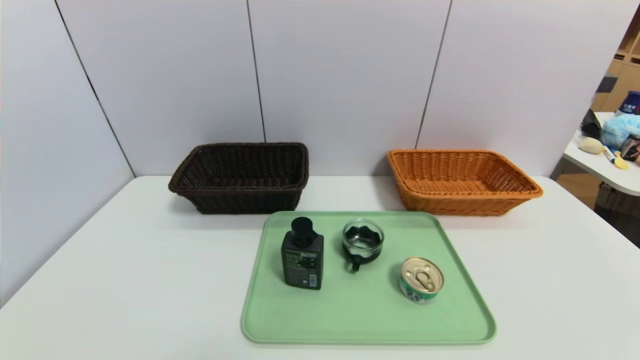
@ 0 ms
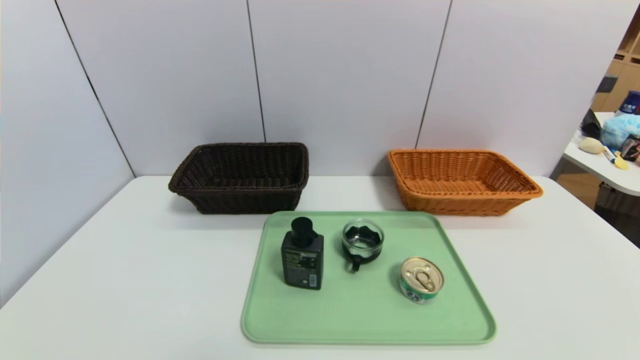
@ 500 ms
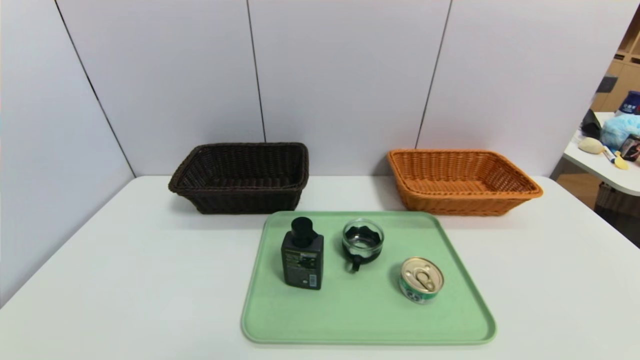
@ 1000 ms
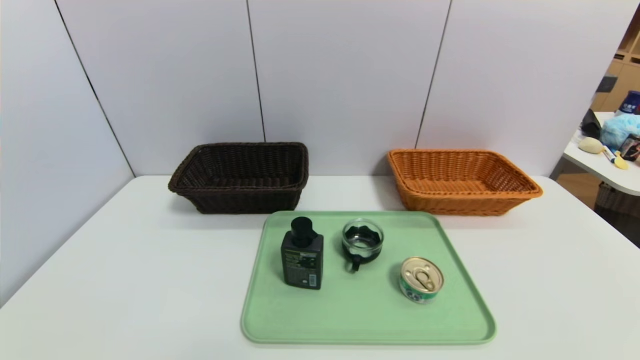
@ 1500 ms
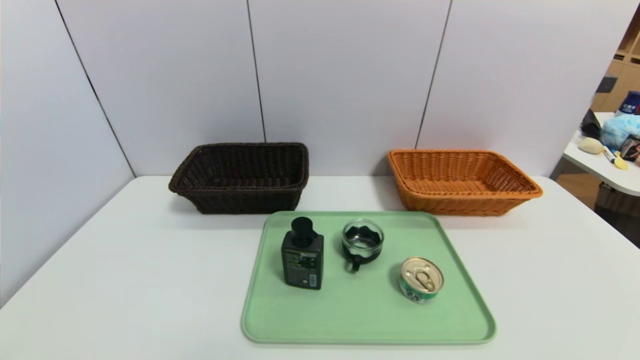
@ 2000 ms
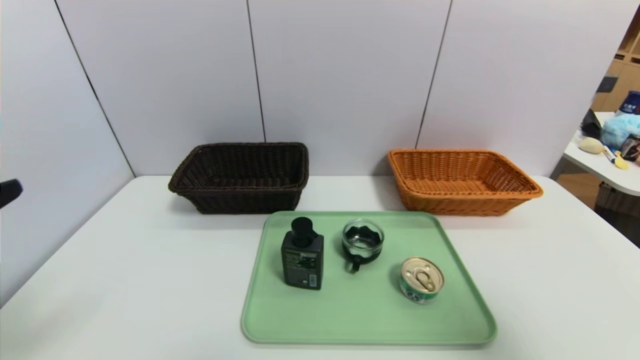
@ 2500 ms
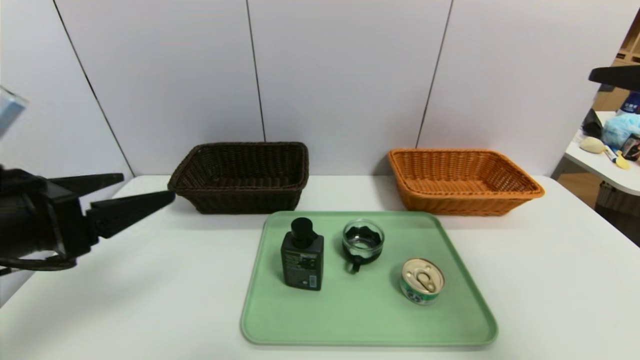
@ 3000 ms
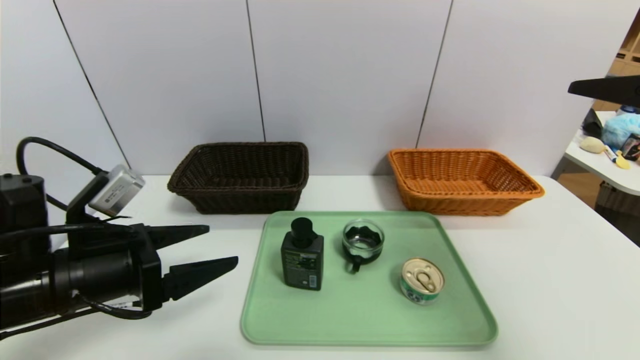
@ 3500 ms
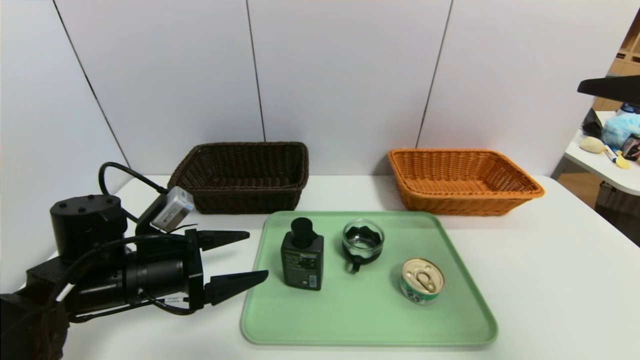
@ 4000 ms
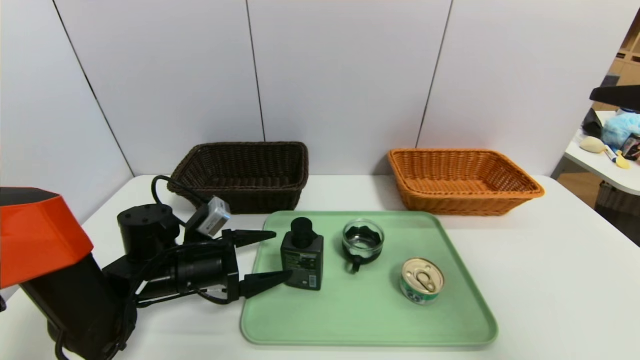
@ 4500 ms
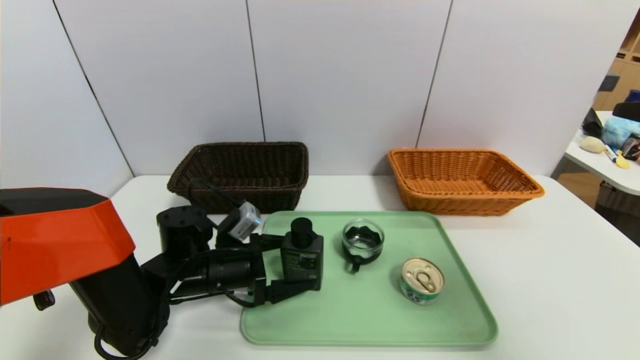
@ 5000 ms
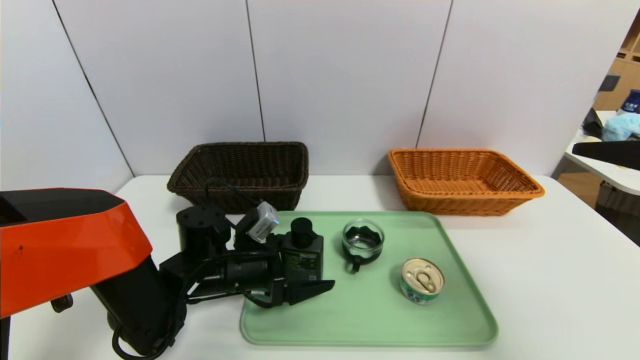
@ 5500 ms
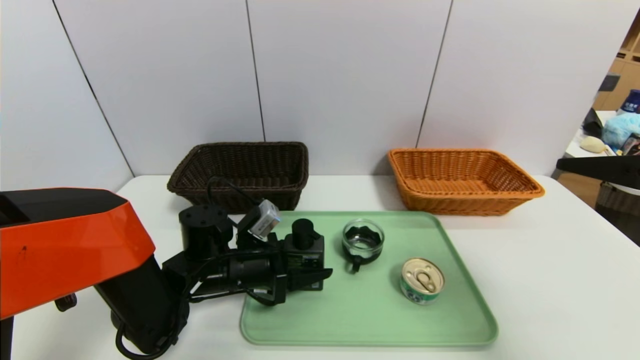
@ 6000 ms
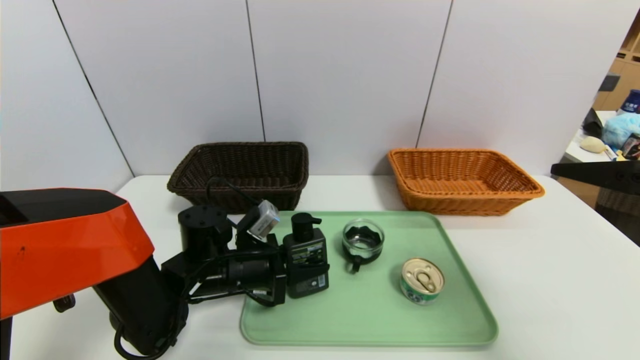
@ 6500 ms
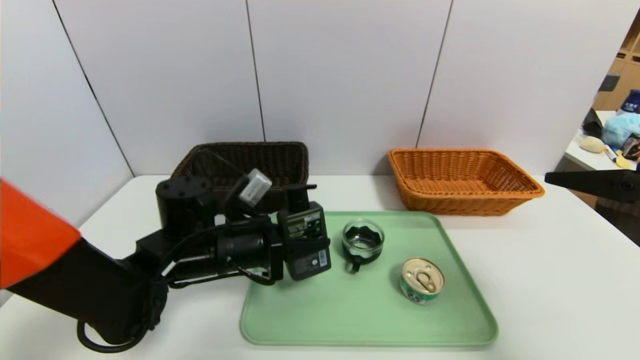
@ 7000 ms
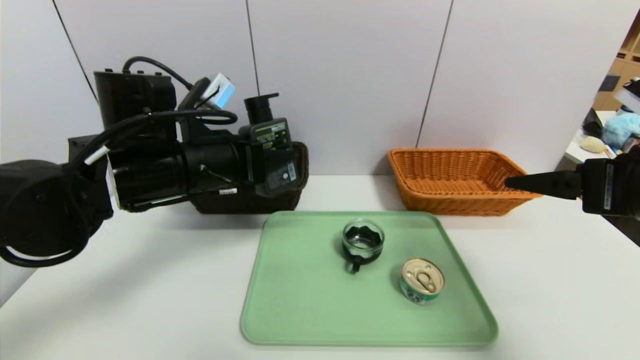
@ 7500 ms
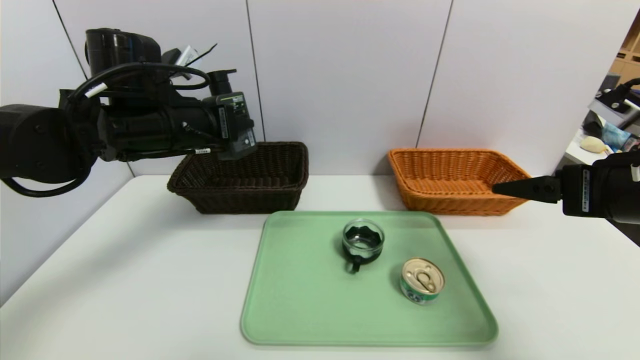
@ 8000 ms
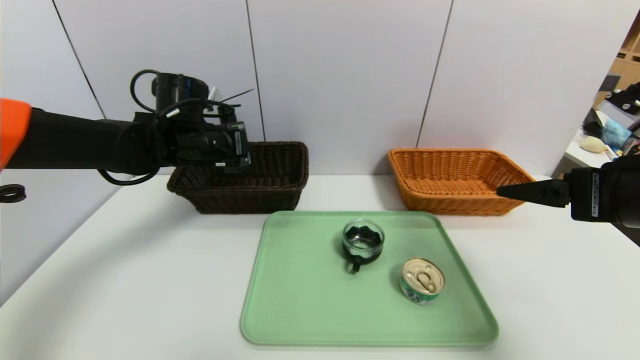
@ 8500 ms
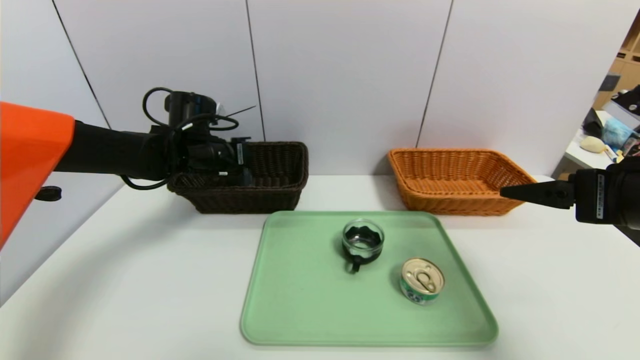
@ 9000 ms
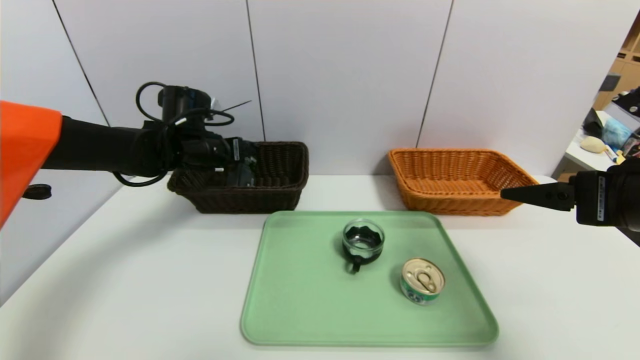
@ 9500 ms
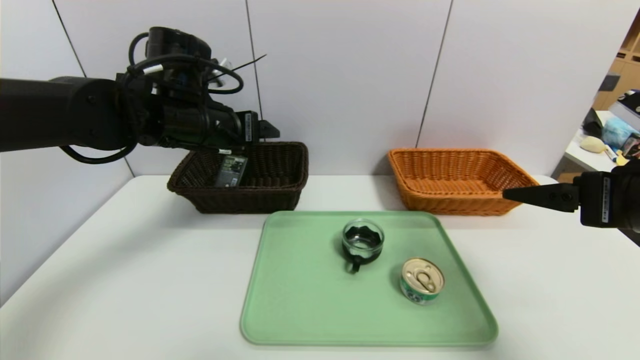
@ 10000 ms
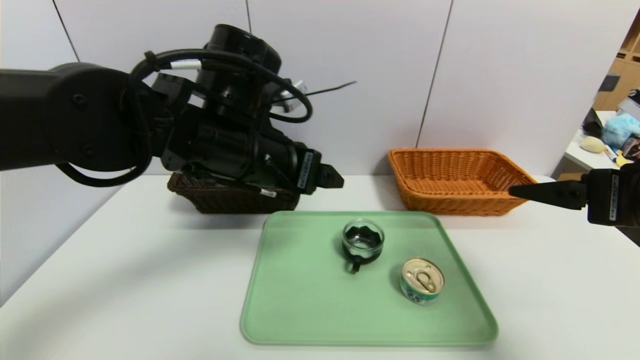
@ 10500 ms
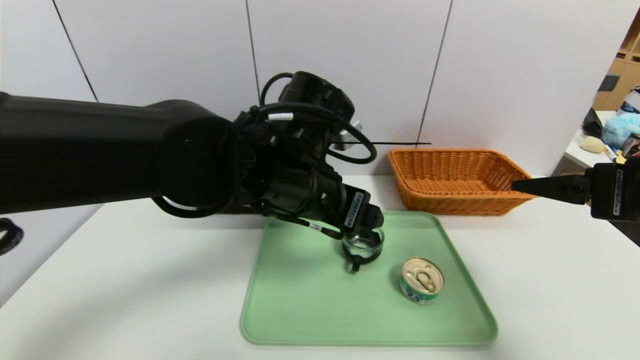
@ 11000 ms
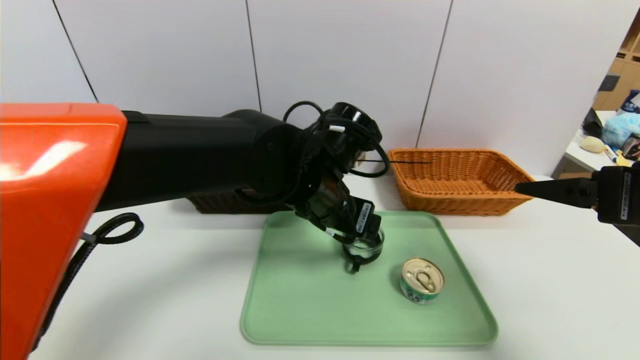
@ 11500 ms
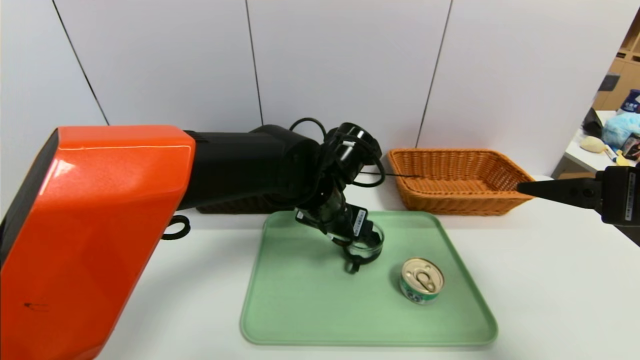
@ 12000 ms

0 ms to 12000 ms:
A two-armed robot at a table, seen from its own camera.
Task of the whole recording: place the food in the right basket with the right gripper, and place the non food items in the left basket with the left gripper.
Step, 0 ms to 9500 ms: Grasp the hard cleanser and put it in the left basket.
2000 ms to 4000 ms: The left gripper travels forward by some 25 cm. The right gripper heads forward and upward, covering about 20 cm.
4000 ms to 6000 ms: The left gripper moves to the right and forward, roughly 10 cm, and closes.
6000 ms to 8000 ms: The left gripper travels upward by roughly 20 cm. Meanwhile the right gripper is displaced forward by roughly 5 cm.
8000 ms to 10000 ms: The left gripper reaches approximately 10 cm forward, then returns, and opens up.
10000 ms to 12000 ms: The left gripper shifts roughly 20 cm to the right and downward.

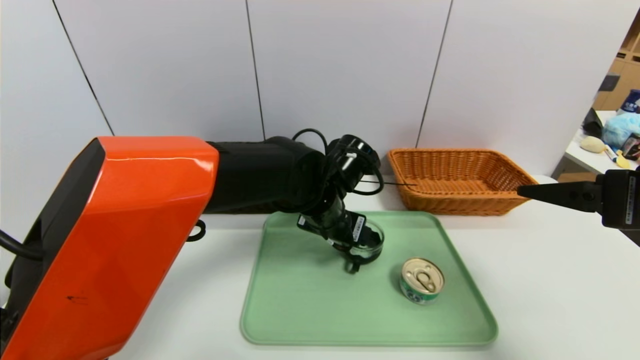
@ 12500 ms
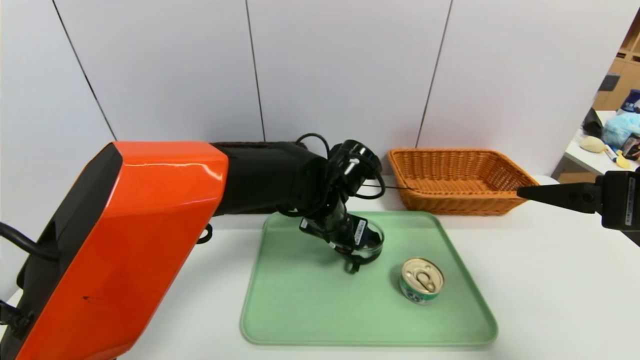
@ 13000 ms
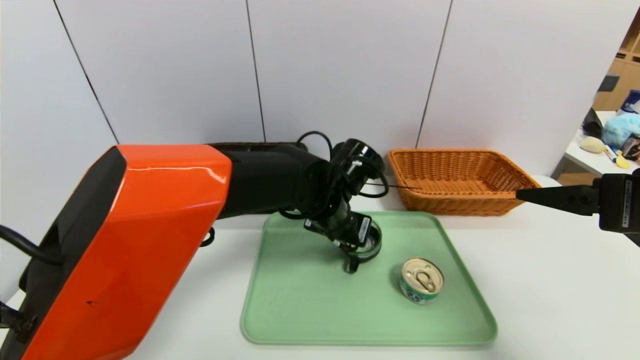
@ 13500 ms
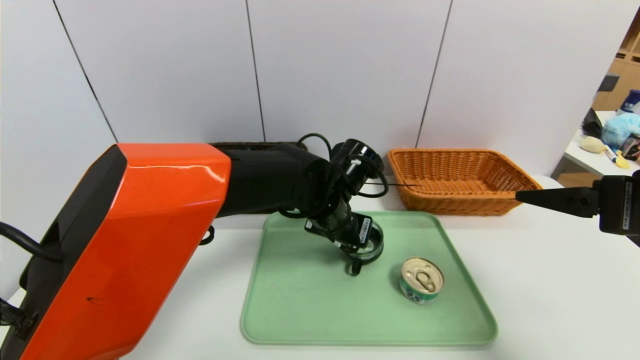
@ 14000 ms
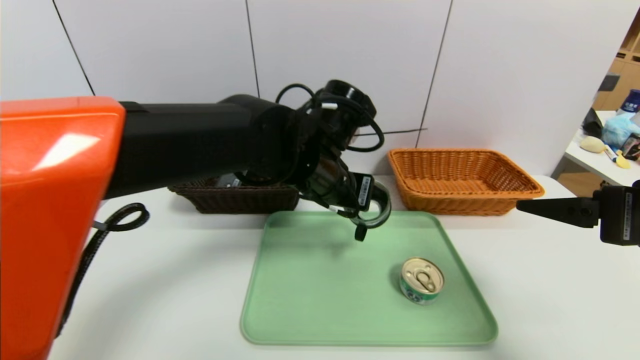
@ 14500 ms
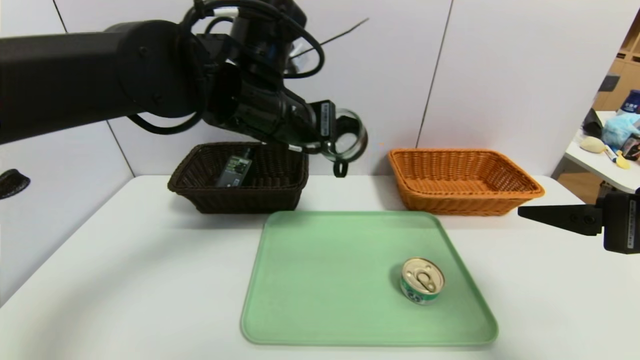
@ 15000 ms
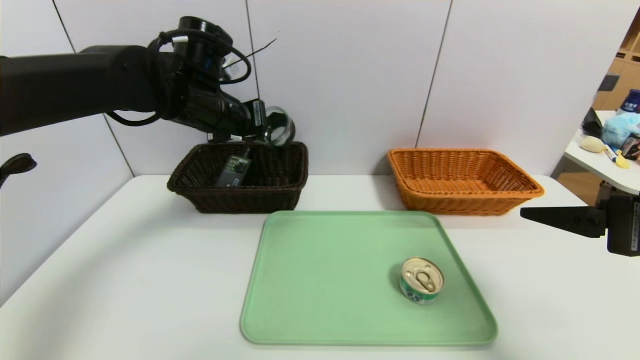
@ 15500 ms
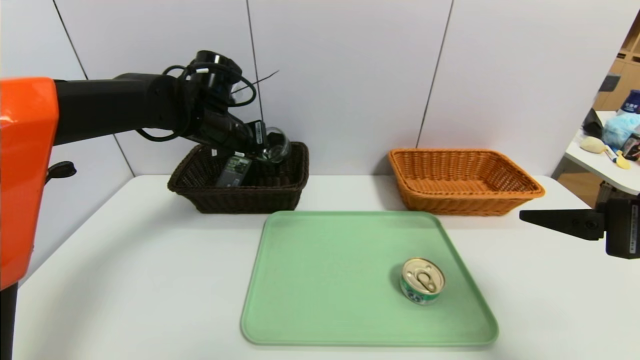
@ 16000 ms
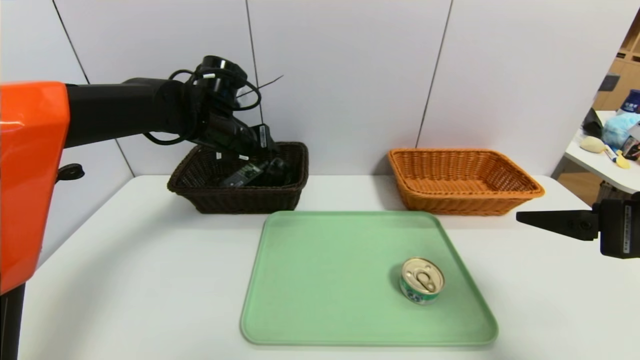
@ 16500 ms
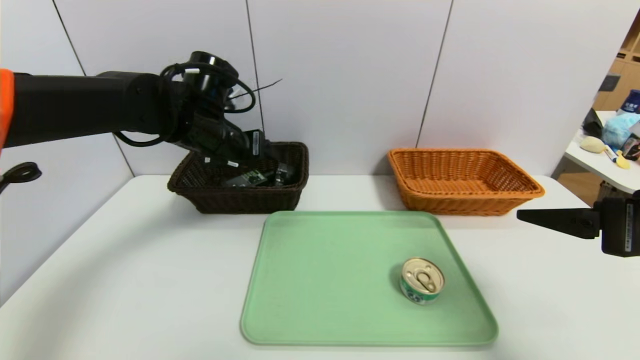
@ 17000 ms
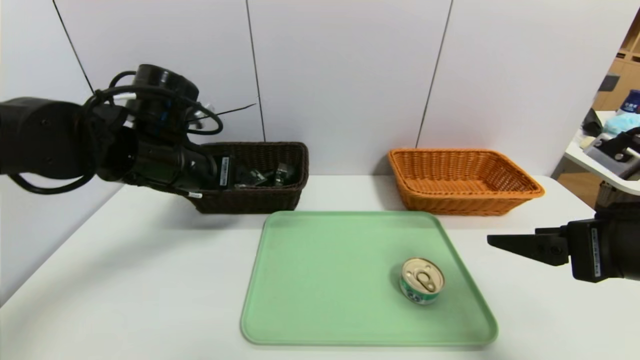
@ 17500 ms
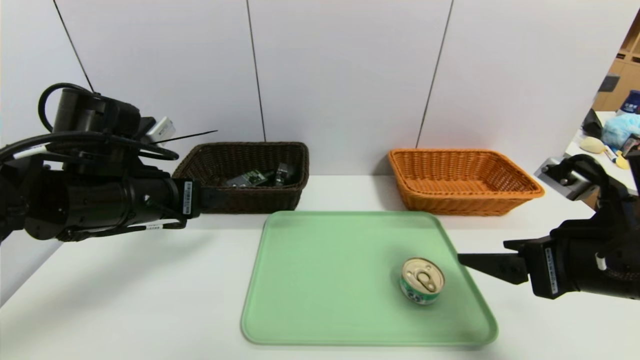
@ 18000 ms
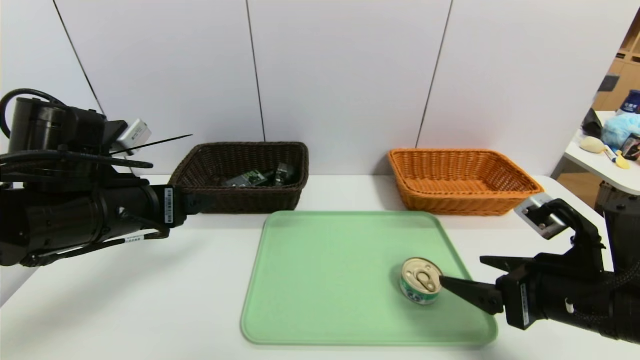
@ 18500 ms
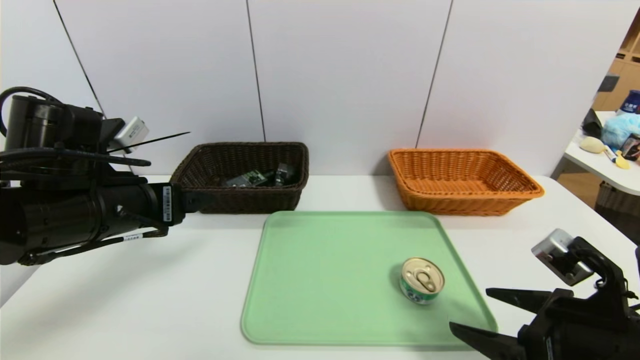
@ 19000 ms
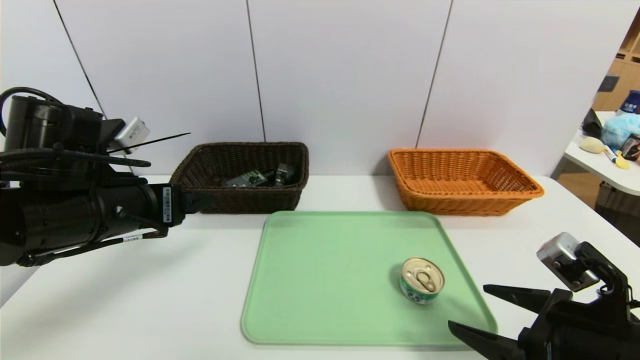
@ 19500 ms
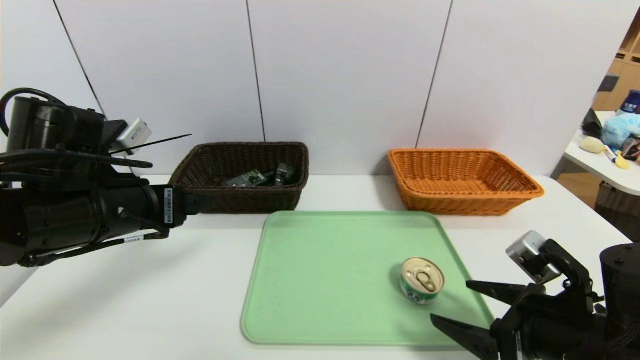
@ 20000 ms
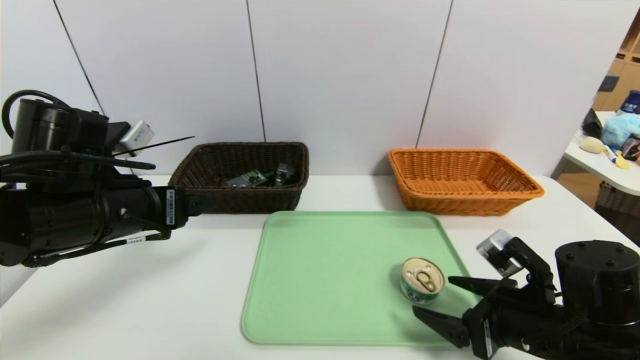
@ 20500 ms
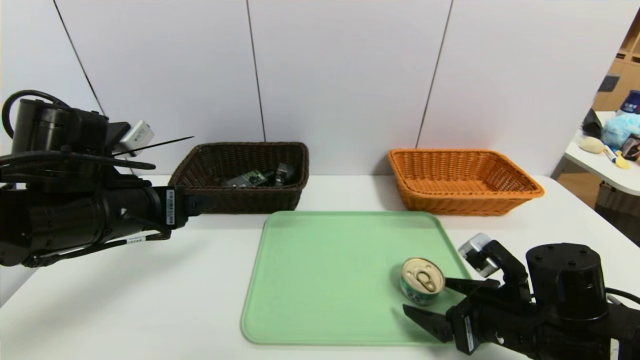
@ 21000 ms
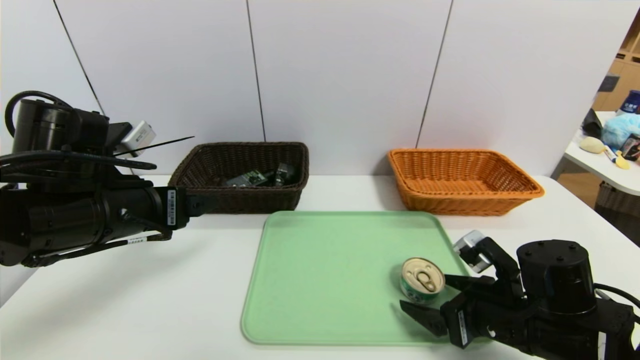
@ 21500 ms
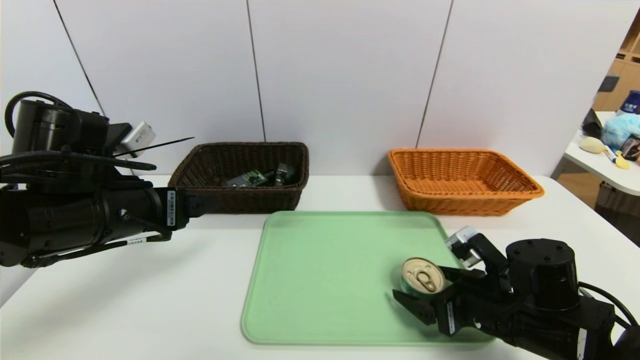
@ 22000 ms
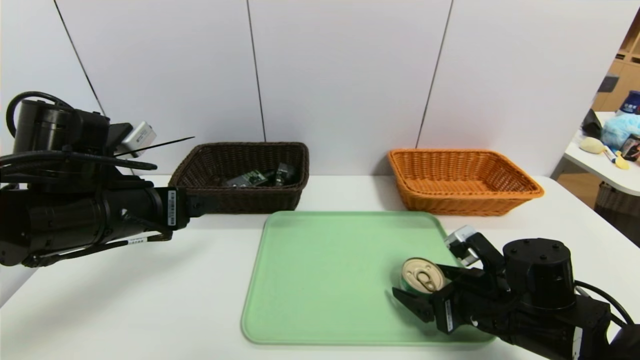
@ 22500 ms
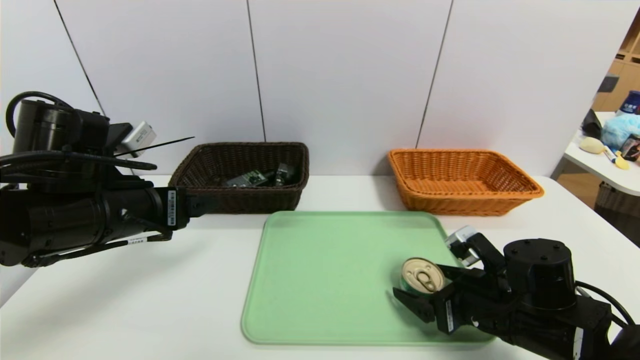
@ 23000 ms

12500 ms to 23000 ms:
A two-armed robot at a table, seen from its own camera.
Task of the whole recording: place the food in the right basket with the right gripper, and place the non food items in the left basket with the left gripper.
Step, 12500 ms to 16500 ms: Grasp the tea cup and put it in the left basket.
12500 ms to 14500 ms: The left gripper is displaced upward by approximately 5 cm, and closes.
14500 ms to 16500 ms: The left gripper goes about 20 cm to the left and forward, and opens up.
16500 ms to 19000 ms: The left gripper travels backward by roughly 20 cm. Meanwhile the right gripper goes approximately 10 cm downward.
19000 ms to 21000 ms: The right gripper goes roughly 10 cm downward and forward.
21000 ms to 23000 ms: The grippers stay close to where they were, moving slightly.
